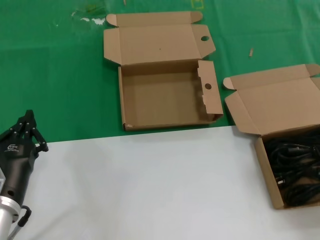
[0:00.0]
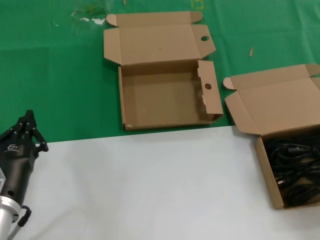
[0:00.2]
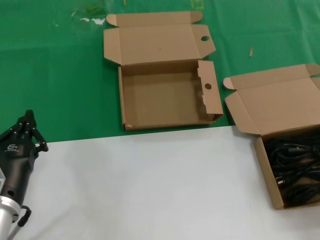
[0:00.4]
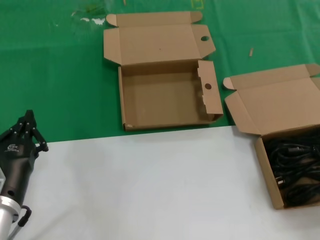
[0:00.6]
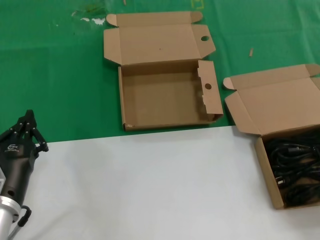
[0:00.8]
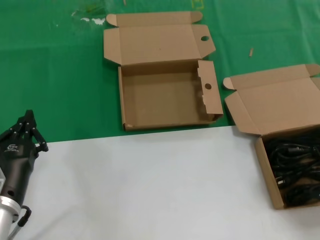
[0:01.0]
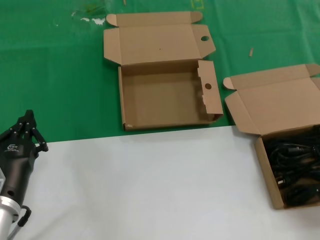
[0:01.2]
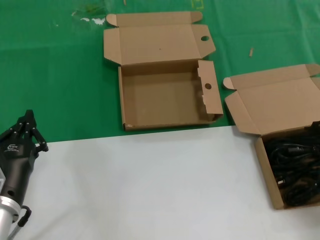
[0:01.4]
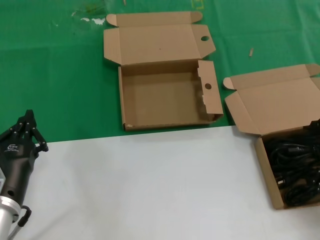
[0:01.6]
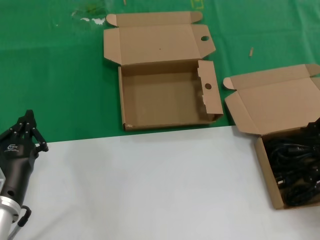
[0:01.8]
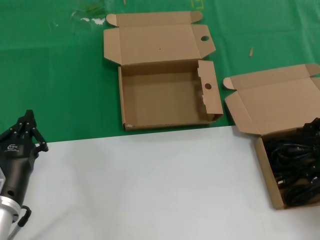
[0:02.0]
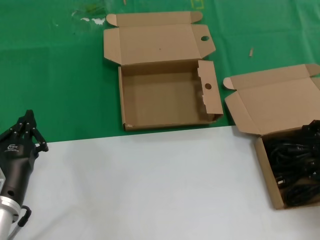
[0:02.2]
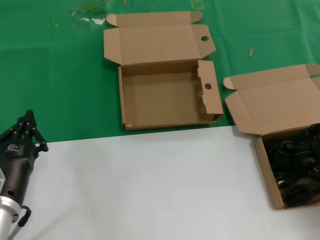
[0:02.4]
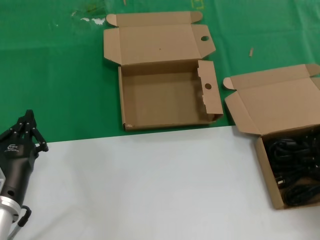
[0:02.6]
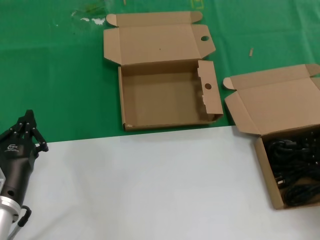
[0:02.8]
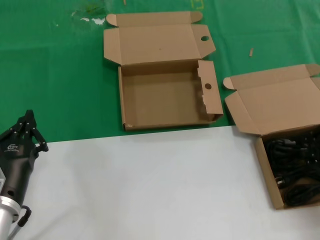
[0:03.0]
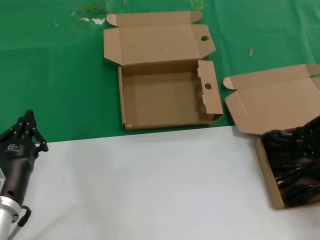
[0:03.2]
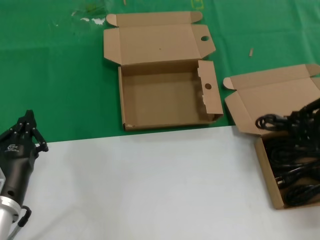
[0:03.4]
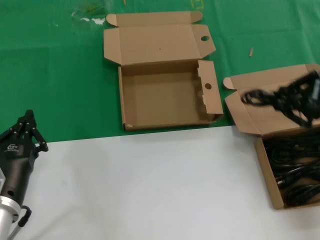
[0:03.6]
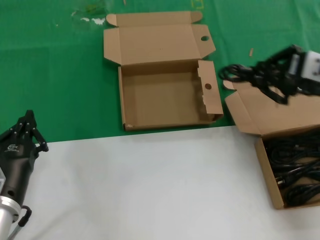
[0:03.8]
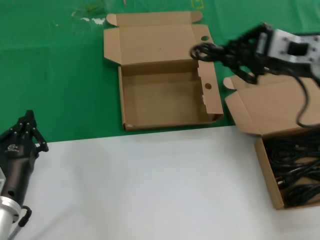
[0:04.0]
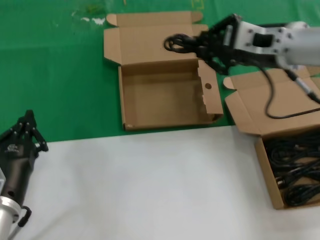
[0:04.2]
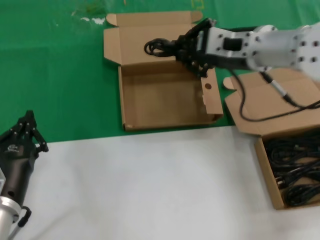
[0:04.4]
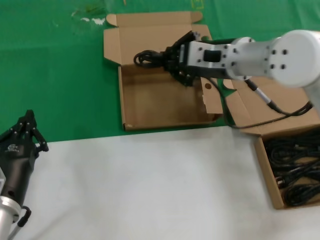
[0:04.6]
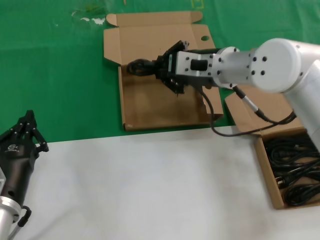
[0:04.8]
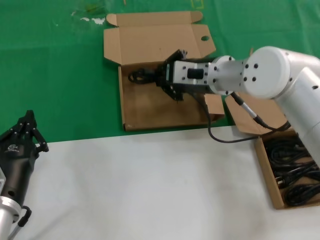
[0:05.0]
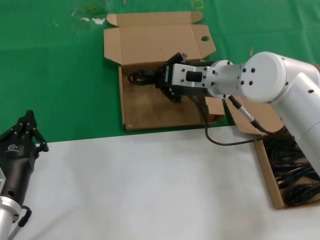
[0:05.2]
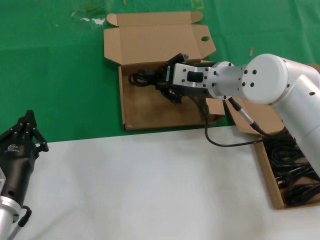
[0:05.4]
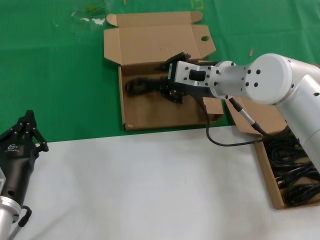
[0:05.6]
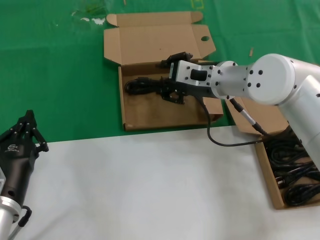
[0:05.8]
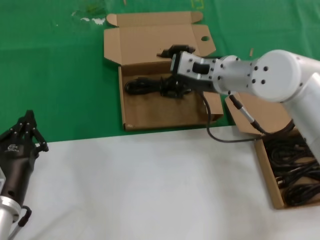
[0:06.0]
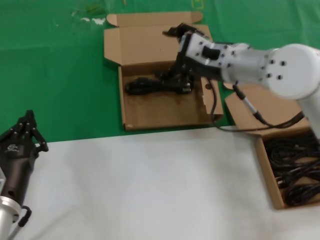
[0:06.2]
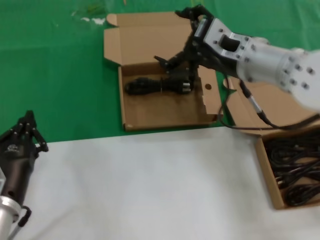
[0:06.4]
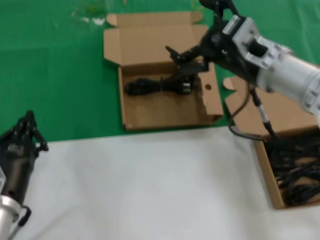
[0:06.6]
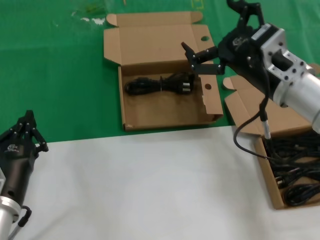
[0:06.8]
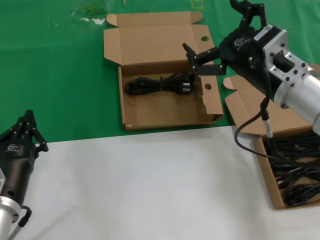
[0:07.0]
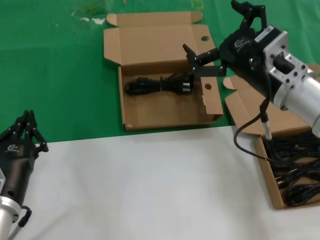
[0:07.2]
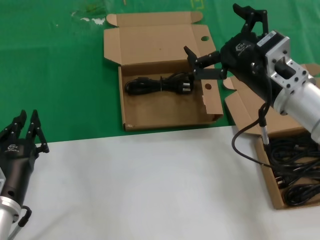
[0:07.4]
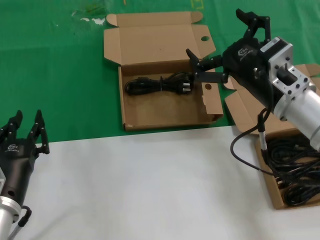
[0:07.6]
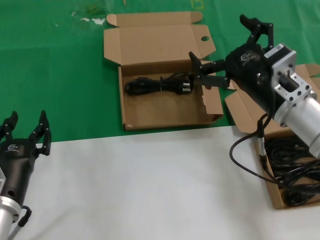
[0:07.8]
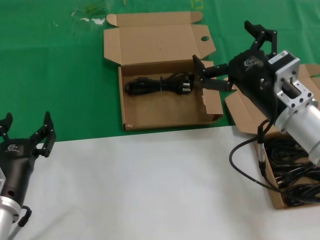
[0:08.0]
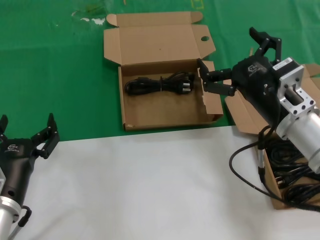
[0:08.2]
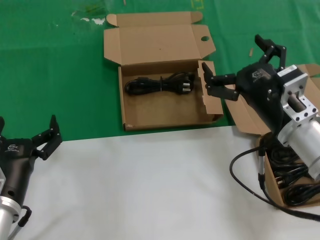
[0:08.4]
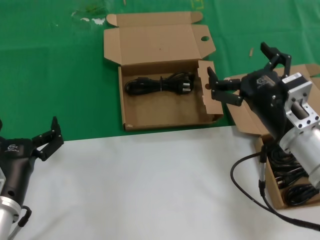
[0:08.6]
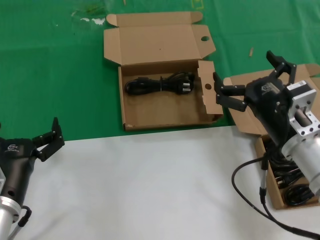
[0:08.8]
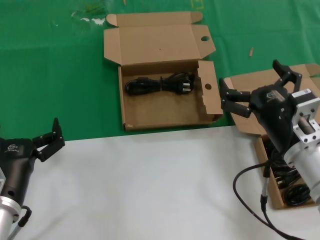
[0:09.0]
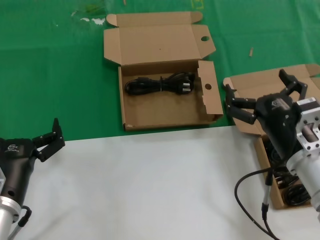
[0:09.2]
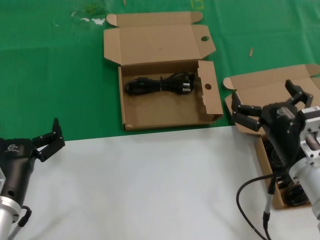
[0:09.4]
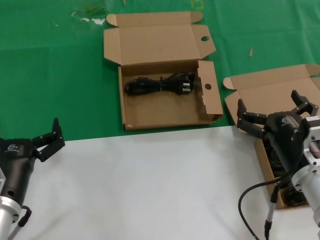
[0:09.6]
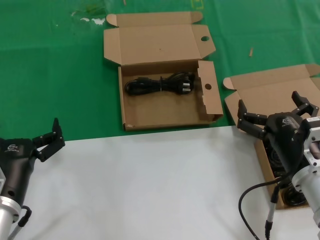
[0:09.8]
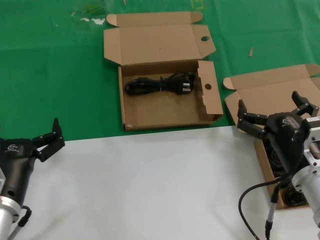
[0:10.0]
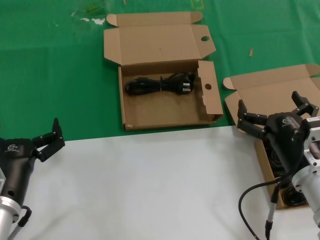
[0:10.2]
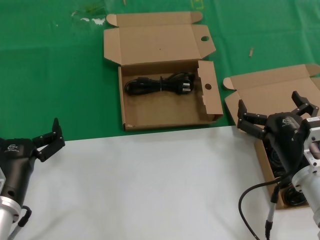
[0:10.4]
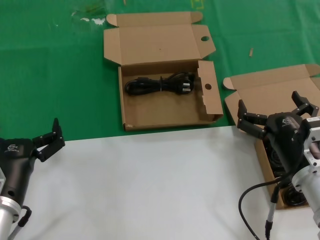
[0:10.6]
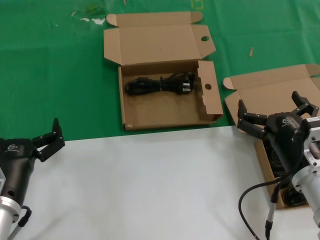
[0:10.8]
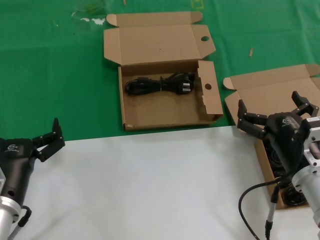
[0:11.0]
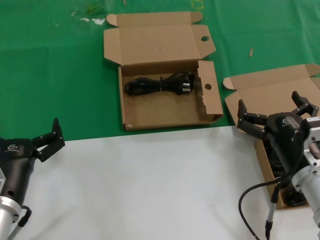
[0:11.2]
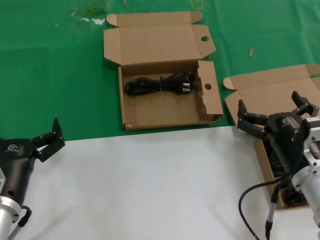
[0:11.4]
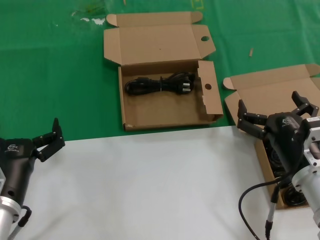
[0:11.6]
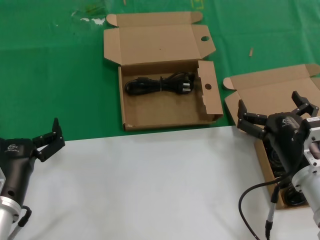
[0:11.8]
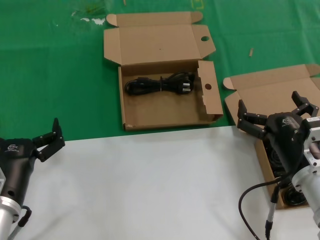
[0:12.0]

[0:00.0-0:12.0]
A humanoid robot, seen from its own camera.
Task of the whole recording: take the parts from the box containing them and put them into an empty box.
Step, 3.0 to 6.0 s: Place the data cable in the another box.
1.6 to 3.0 s: Both hands stay put.
3.0 to 4.4 s: The right hand heads to the left, forward and upward, covering roughly 25 cm.
4.4 to 6.0 s: The right hand goes some 5 cm downward.
6.0 to 7.6 s: The right hand moves backward and to the right, about 15 cm.
7.6 to 9.0 s: The right hand is displaced downward by some 10 cm.
9.0 to 10.4 s: The hands move only a little.
10.4 to 12.0 s: Both hands stay put.

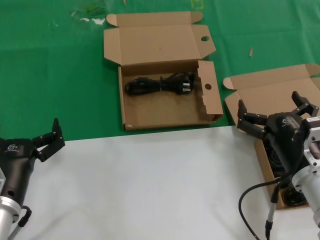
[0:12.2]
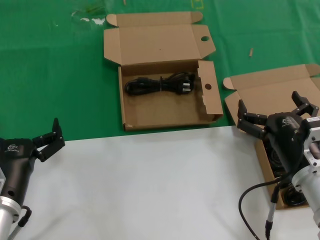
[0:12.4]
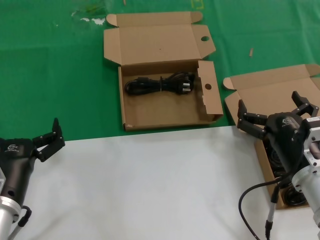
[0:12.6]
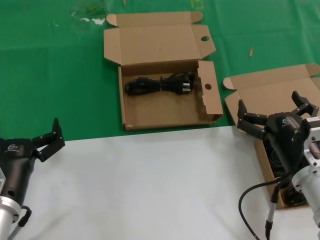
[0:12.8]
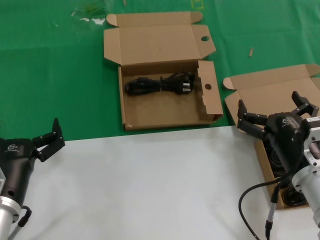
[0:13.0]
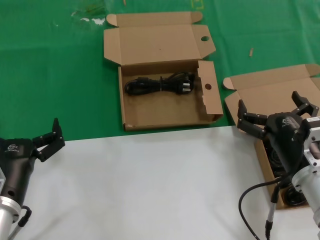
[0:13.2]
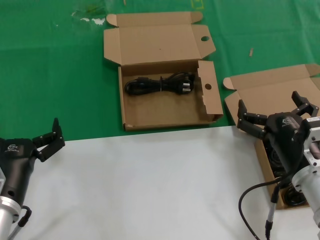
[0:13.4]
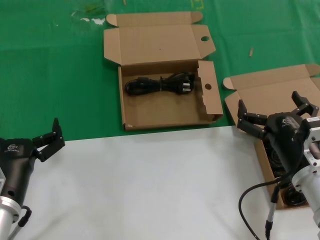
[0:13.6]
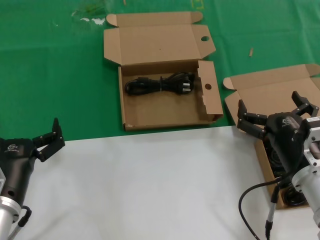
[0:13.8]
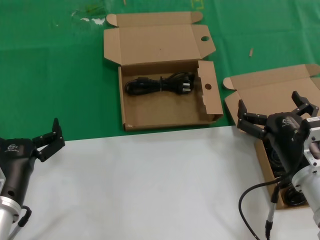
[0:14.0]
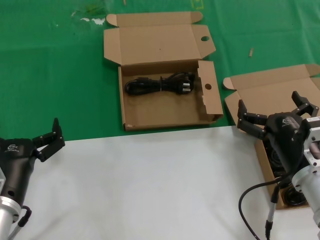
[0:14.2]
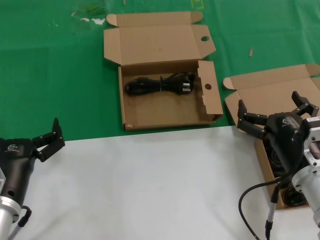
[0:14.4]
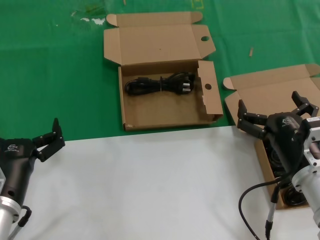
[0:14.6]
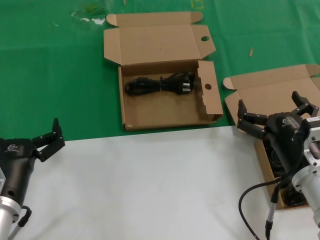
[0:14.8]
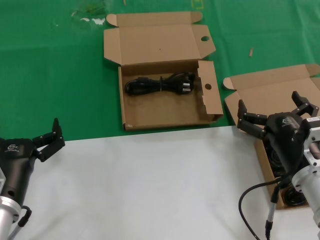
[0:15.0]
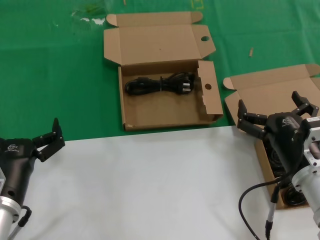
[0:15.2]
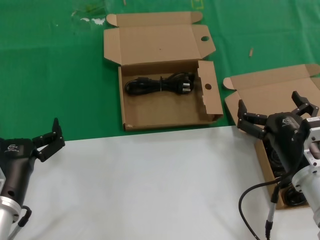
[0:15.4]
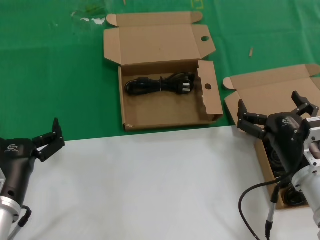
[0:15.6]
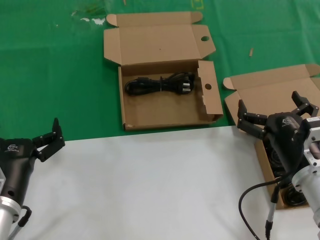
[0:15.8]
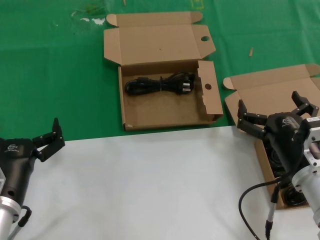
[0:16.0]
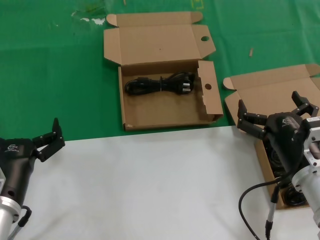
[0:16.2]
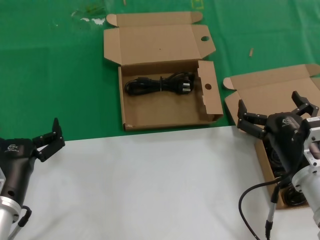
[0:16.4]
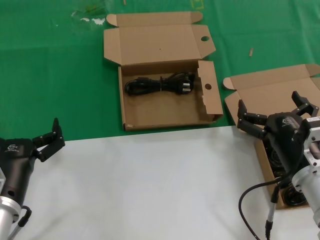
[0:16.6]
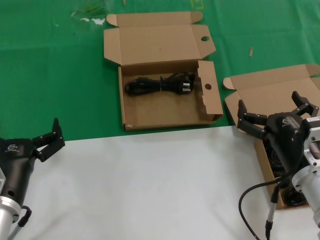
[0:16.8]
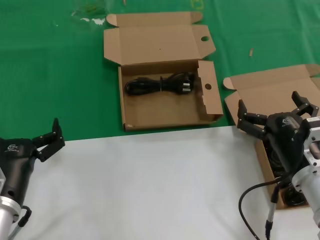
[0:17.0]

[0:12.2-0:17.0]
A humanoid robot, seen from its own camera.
Task of the whole recording: take the parts from the box containing them and put them into an empty box.
12.2 to 17.0 s: The two hands keep their place.

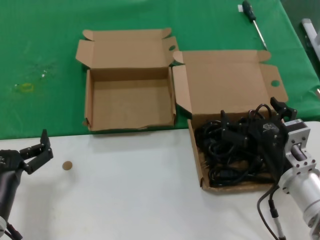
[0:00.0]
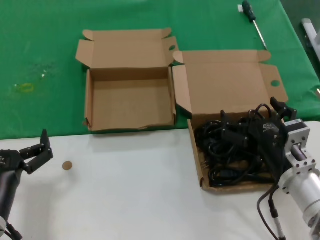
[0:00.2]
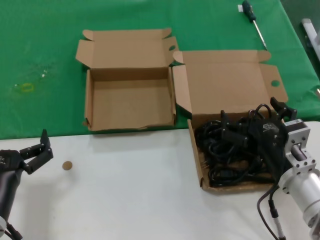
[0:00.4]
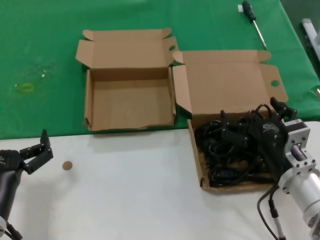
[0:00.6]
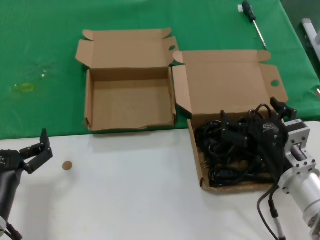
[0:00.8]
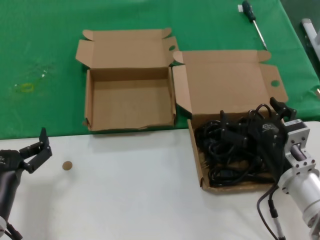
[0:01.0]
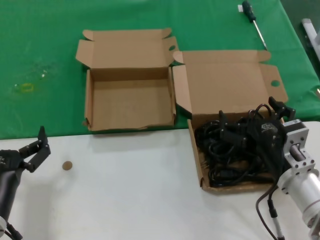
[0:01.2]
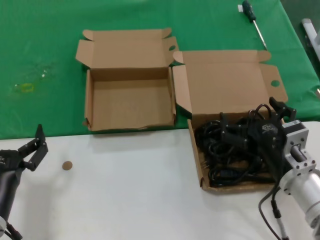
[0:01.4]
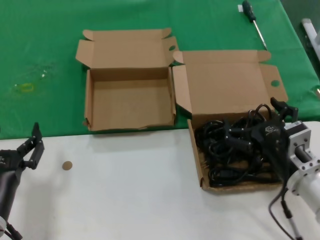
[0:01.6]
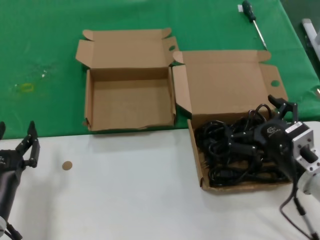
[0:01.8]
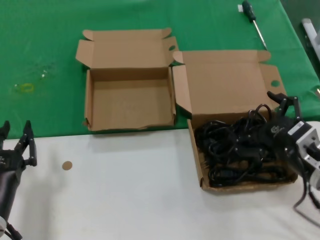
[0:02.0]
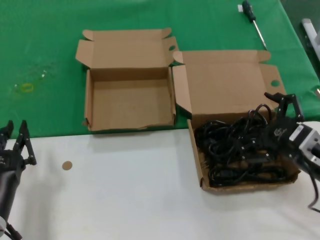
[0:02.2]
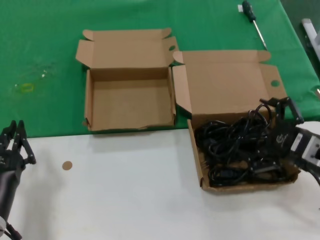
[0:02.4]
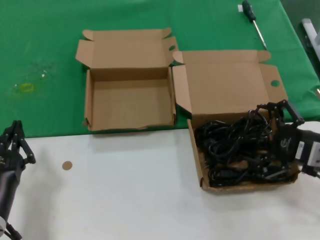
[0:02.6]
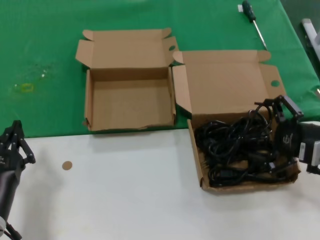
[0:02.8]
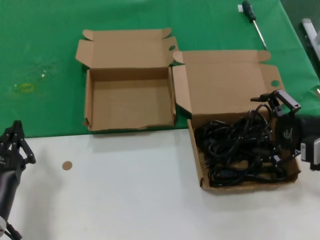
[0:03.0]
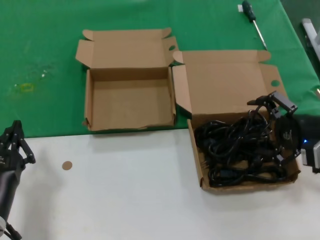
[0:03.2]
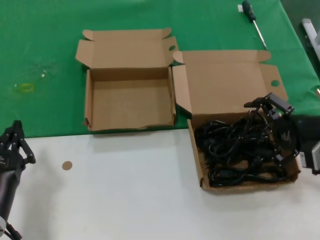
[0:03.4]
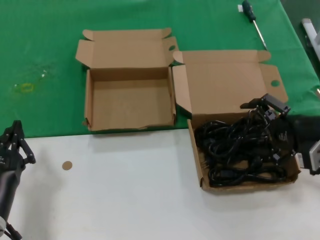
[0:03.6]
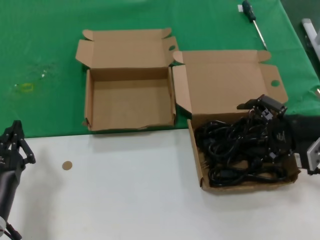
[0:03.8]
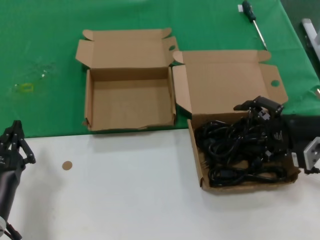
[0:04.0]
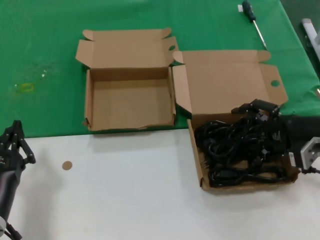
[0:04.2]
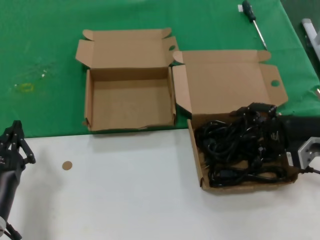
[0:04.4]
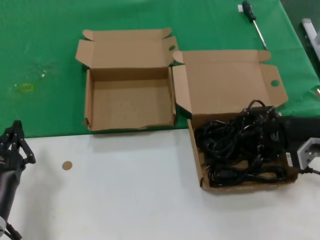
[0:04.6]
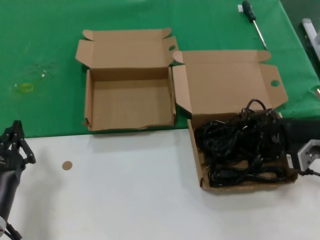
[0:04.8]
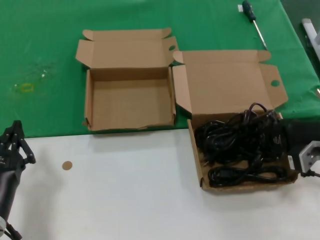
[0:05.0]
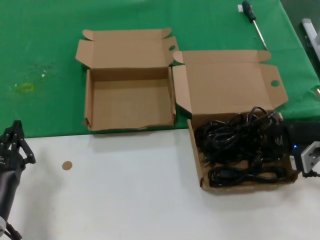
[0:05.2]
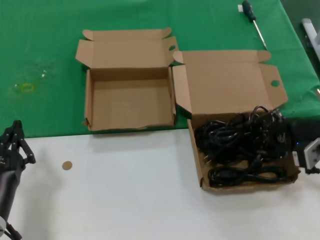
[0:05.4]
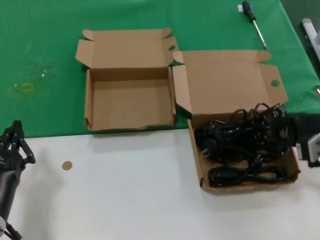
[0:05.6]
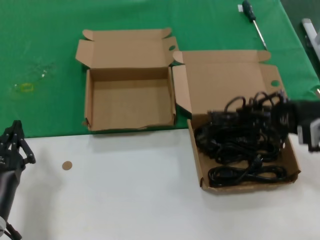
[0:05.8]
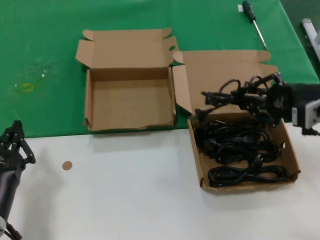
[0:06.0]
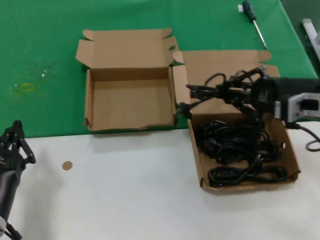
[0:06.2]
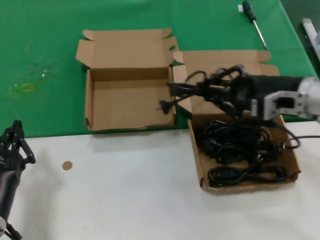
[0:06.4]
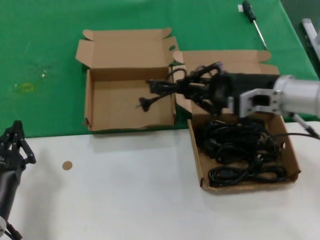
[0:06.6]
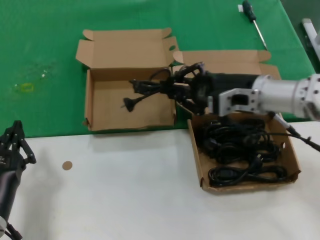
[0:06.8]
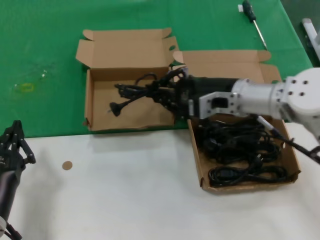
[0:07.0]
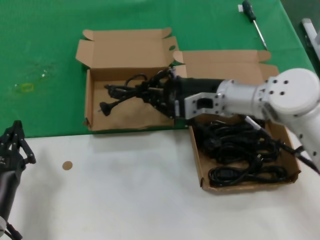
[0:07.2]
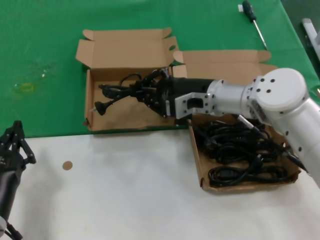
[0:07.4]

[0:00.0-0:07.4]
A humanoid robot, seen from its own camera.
Task of the whole recording: take the parts from the box containing them and put them into an empty box.
Step, 0.0 to 5.2 s: Grasp the data cable.
0.0 to 1.4 s: Neither hand changes place.
1.4 to 3.0 s: The right hand shifts about 15 cm to the right and upward.
3.0 to 4.4 s: There are only small adjustments of the hands.
4.4 to 6.0 s: The right hand goes roughly 5 cm upward.
6.0 to 7.4 s: The right hand travels to the left and forward by about 25 cm.
